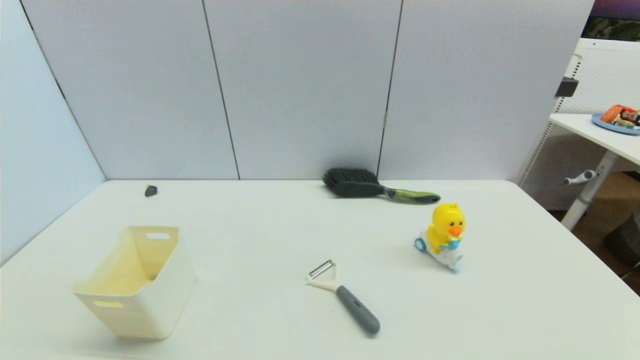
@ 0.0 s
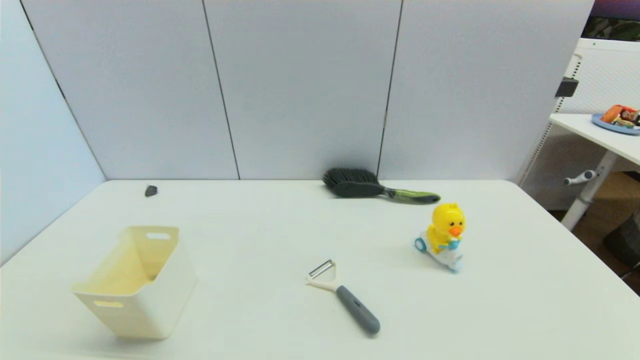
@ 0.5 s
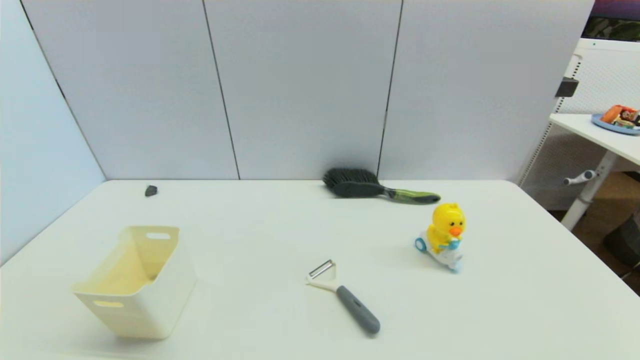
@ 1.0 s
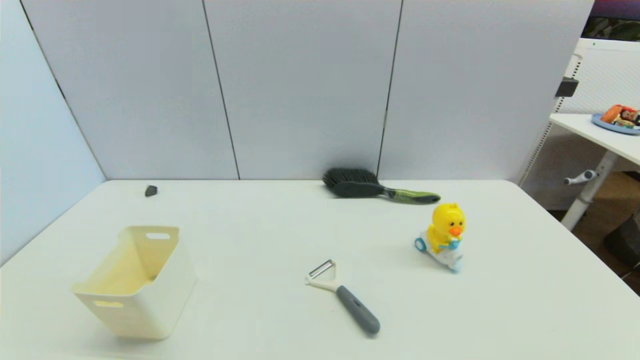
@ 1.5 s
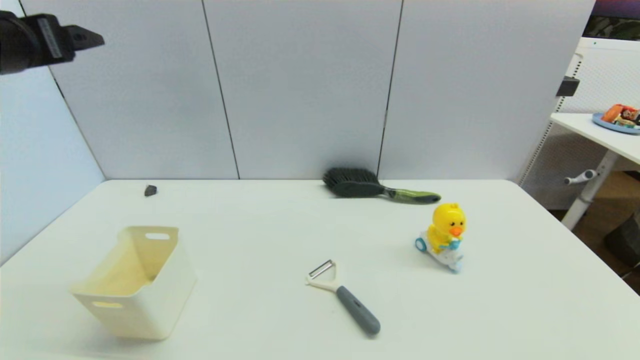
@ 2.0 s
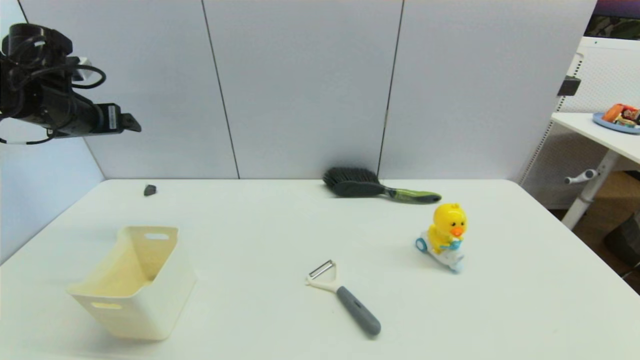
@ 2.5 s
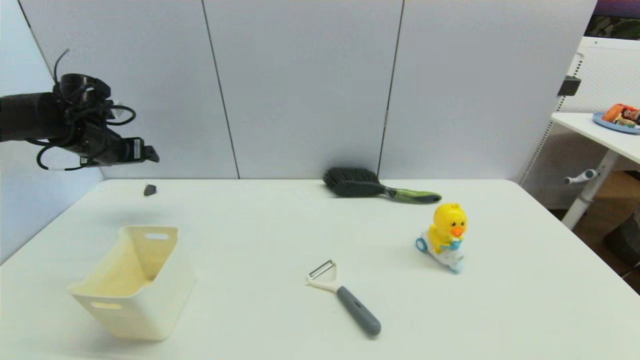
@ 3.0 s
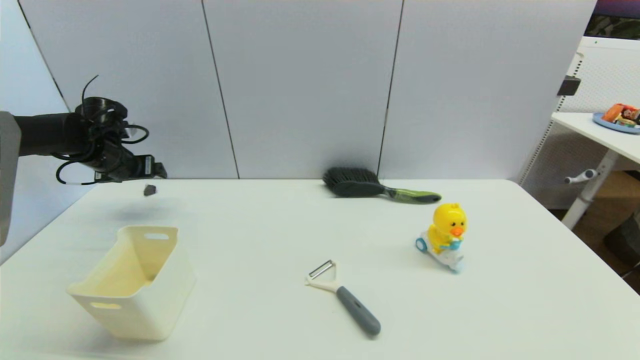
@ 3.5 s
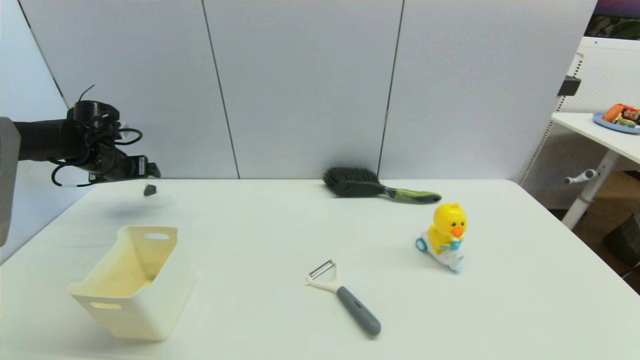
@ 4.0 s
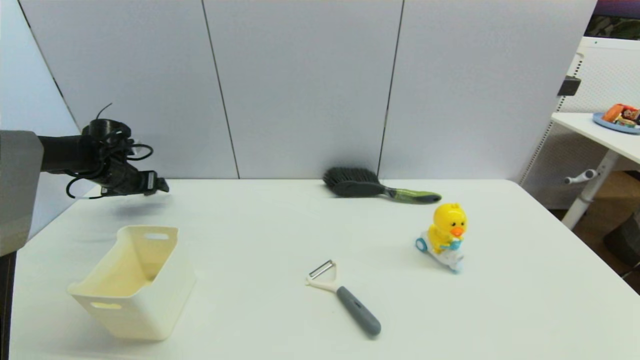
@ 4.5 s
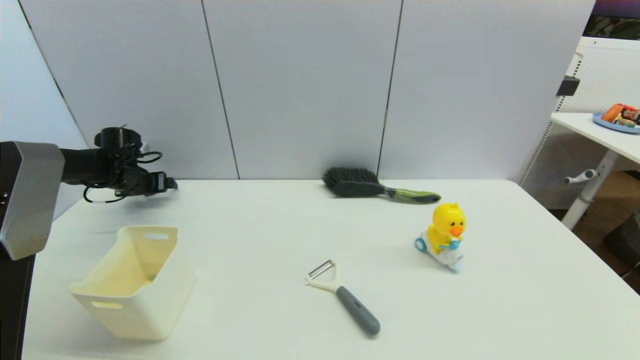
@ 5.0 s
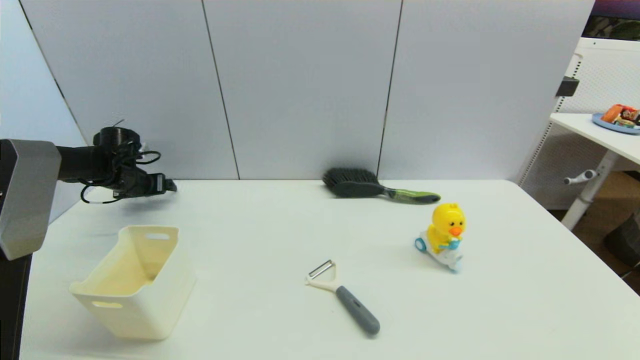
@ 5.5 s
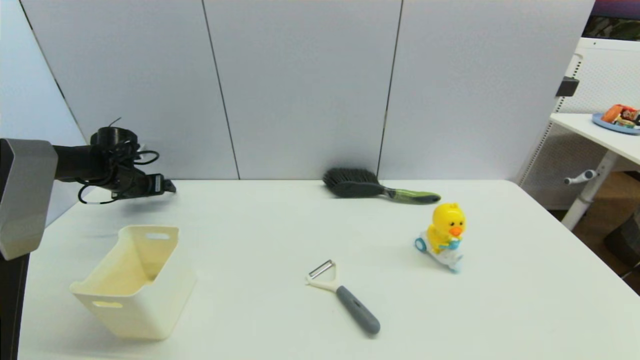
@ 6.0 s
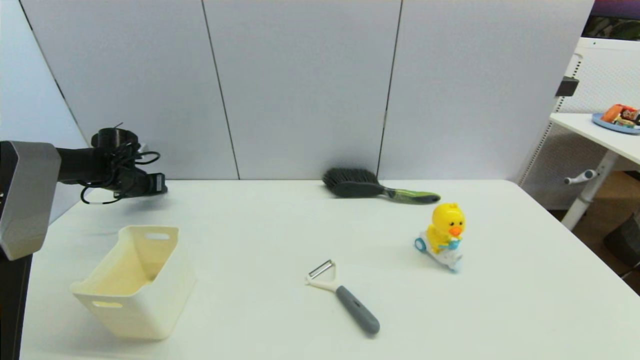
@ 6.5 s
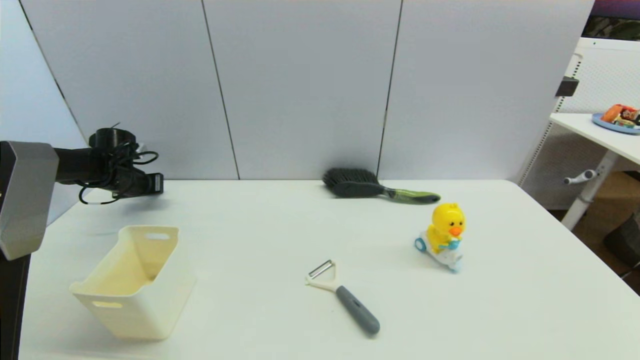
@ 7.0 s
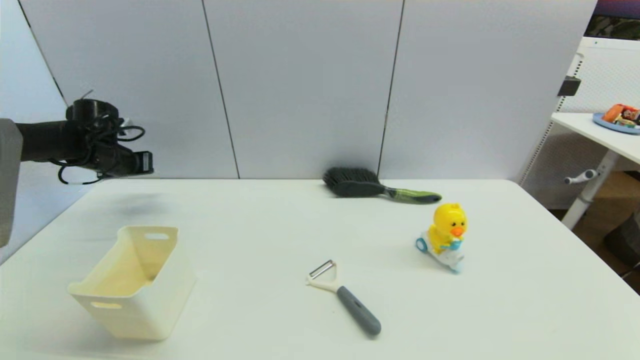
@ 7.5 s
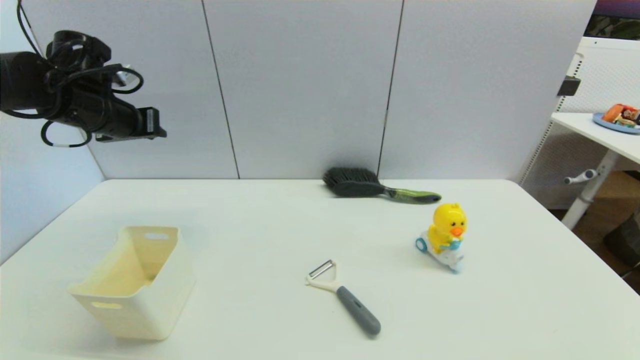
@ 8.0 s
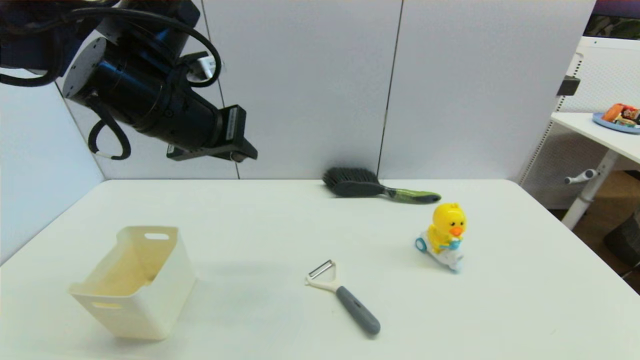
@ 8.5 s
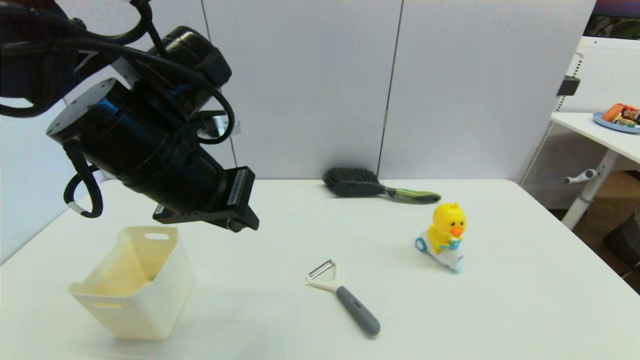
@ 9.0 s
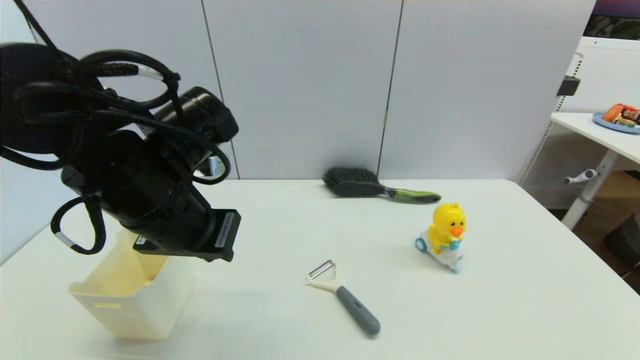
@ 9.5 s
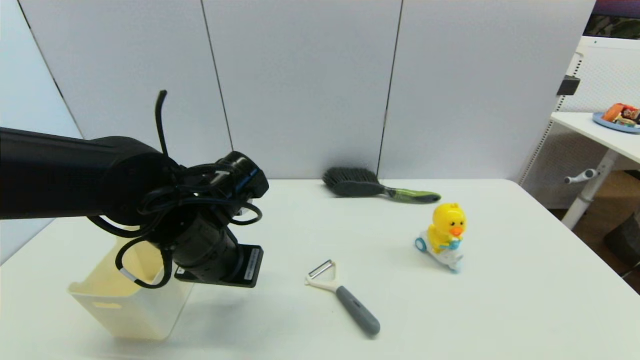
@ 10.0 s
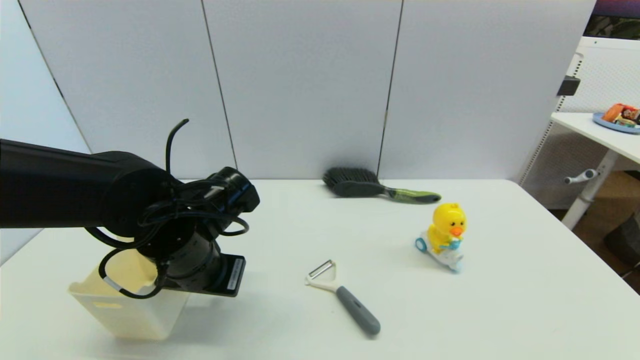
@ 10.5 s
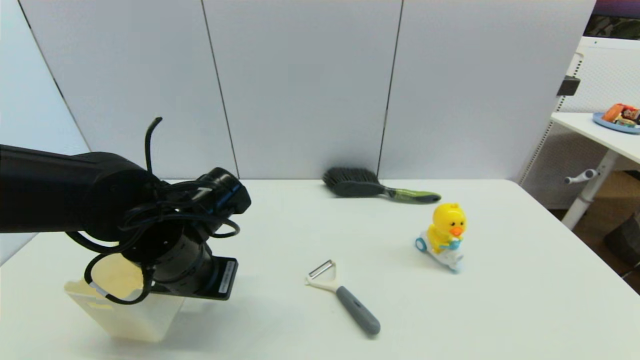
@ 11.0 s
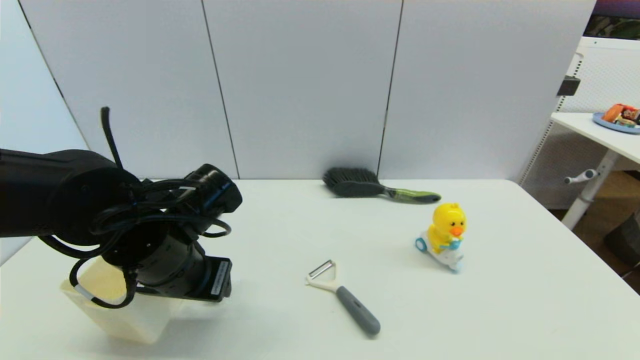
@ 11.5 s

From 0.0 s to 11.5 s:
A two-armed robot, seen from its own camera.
Step, from 1.5 s to 6.5 s: Grasp the coffee capsule with left gripper.
Step, from 7.0 s to 11.0 s: Place the coffee capsule on the table with left gripper.
From 0.0 s to 2.0 s: The left gripper goes approximately 40 cm forward and upward.
From 2.0 s to 4.0 s: The left gripper shifts roughly 30 cm downward, forward and to the left.
From 4.0 s to 6.0 s: The left gripper is displaced downward by about 5 cm.
From 6.0 s to 7.5 s: The left gripper heads upward, covering about 10 cm, and closes up.
From 7.5 s to 9.5 s: The left gripper shifts about 35 cm to the right and backward.
From 9.5 s to 11.5 s: The left gripper moves downward, roughly 10 cm, and opens.

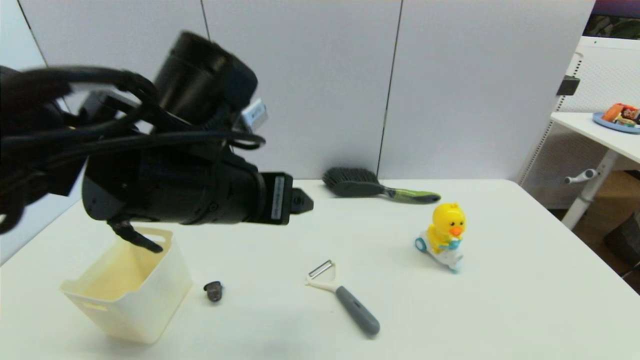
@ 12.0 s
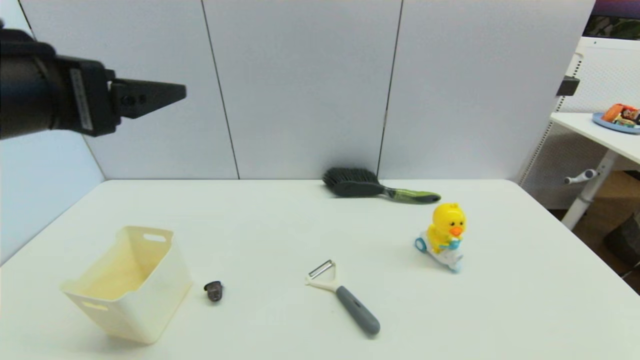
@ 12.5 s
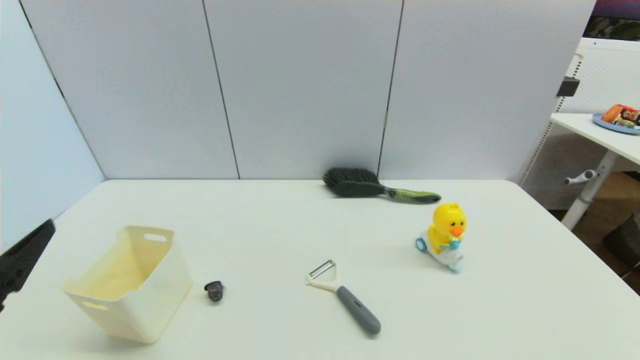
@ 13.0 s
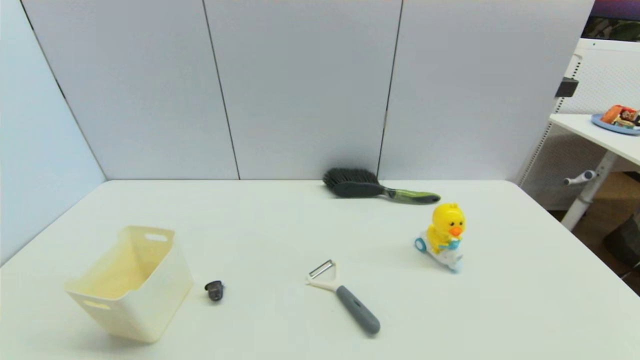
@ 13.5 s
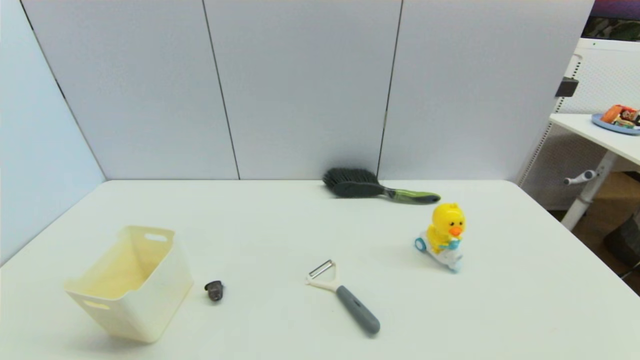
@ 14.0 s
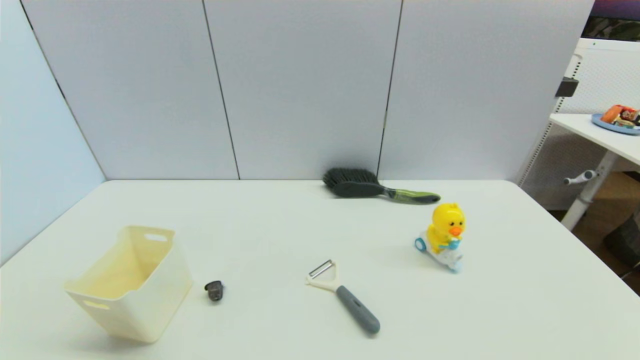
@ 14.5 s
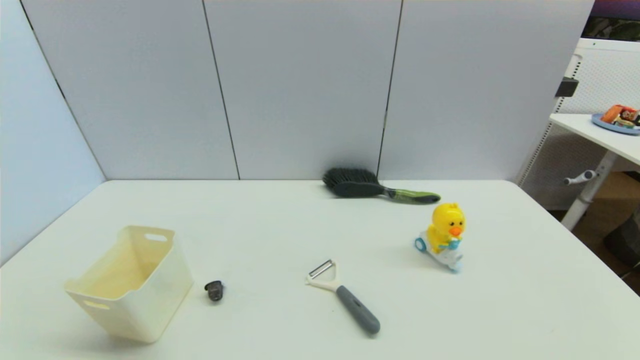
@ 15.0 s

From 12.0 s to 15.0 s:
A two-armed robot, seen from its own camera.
From 12.0 s to 13.5 s: The left gripper shifts roughly 35 cm backward, to the left and downward.
